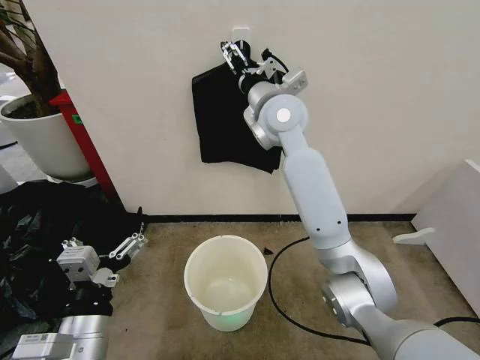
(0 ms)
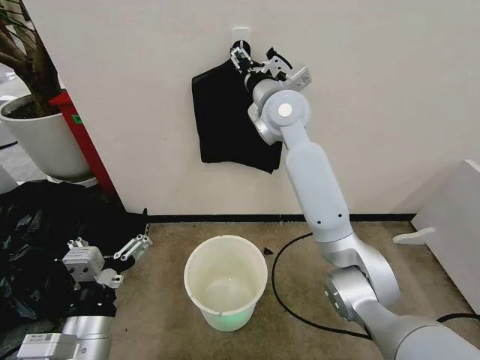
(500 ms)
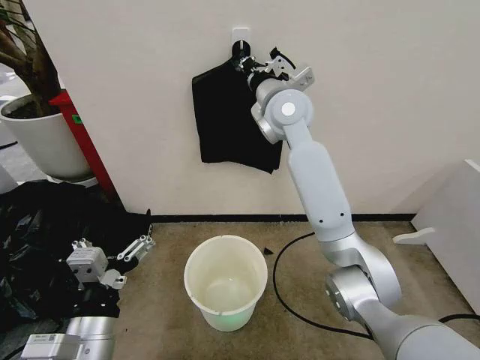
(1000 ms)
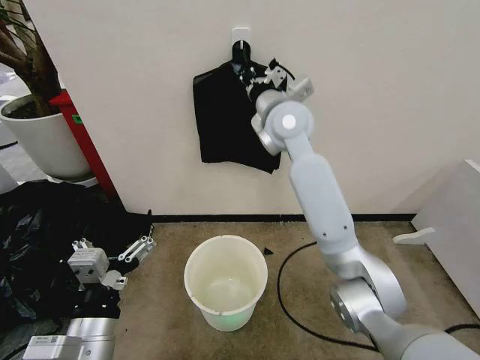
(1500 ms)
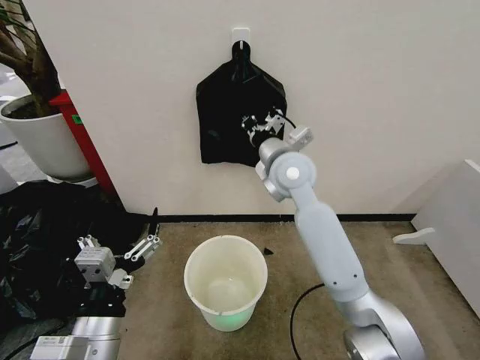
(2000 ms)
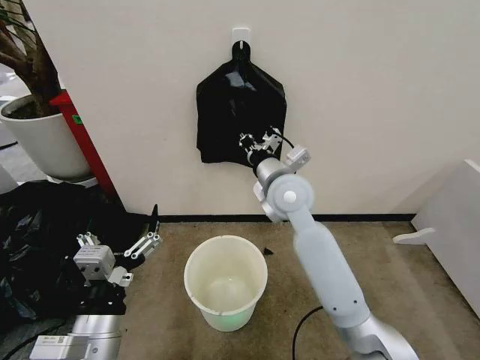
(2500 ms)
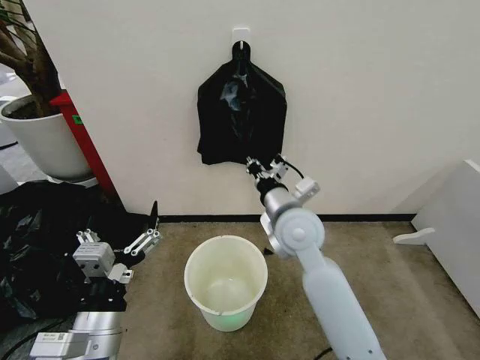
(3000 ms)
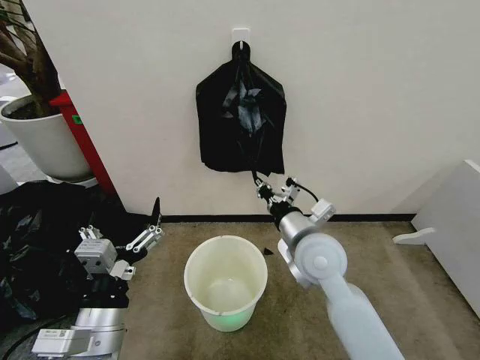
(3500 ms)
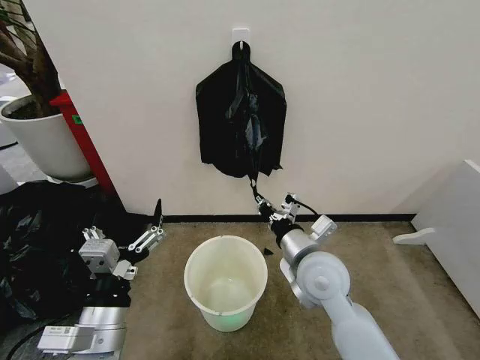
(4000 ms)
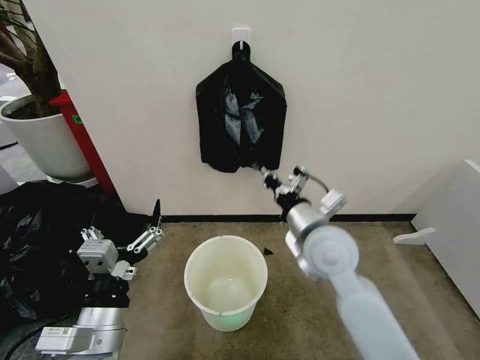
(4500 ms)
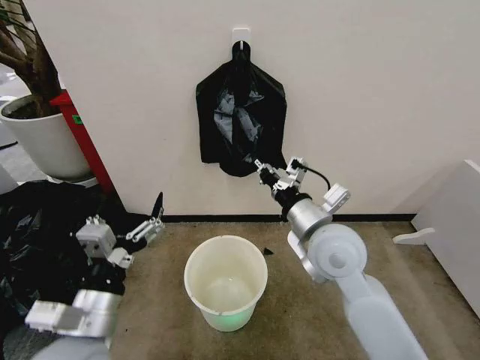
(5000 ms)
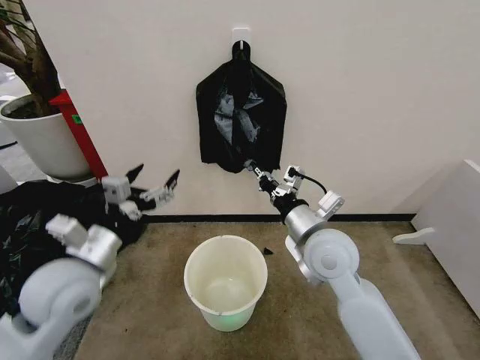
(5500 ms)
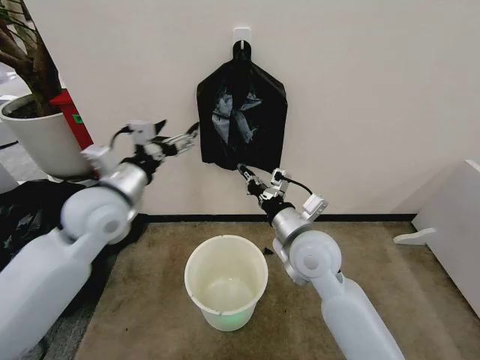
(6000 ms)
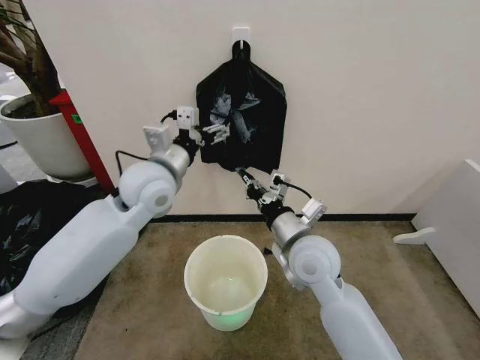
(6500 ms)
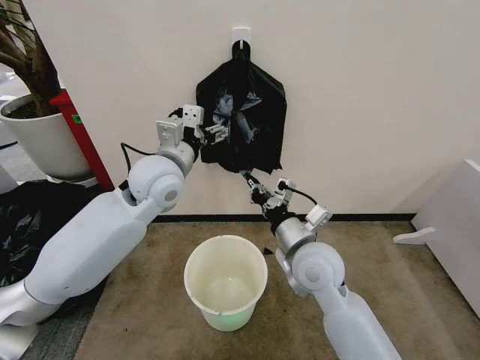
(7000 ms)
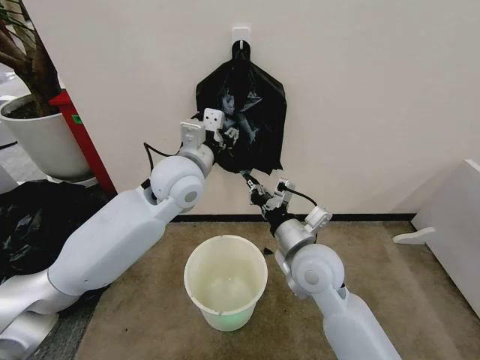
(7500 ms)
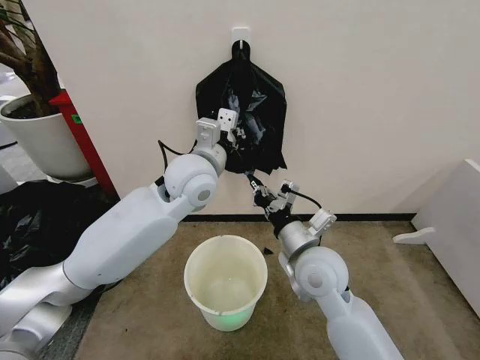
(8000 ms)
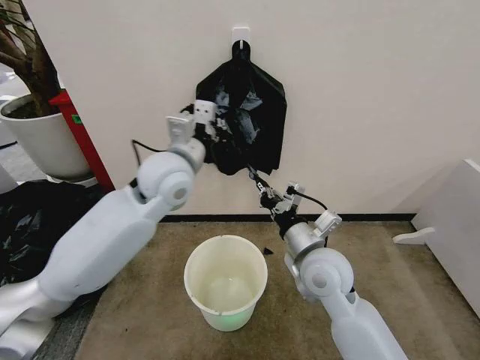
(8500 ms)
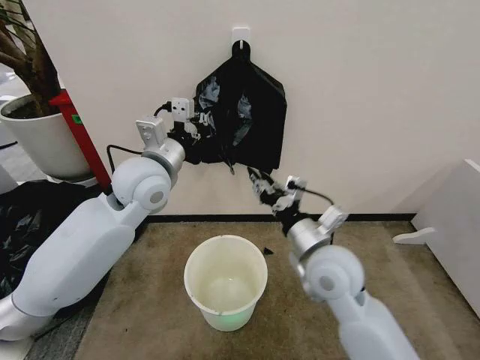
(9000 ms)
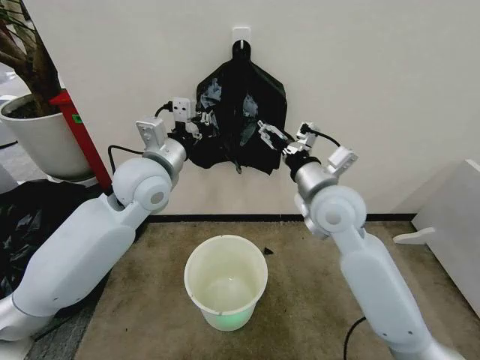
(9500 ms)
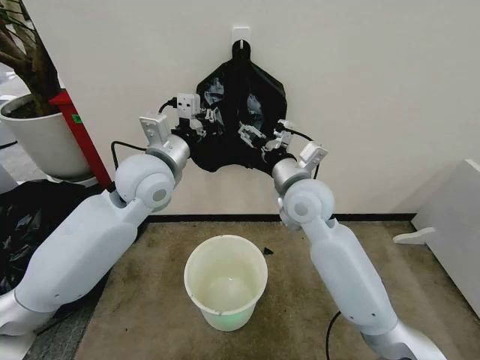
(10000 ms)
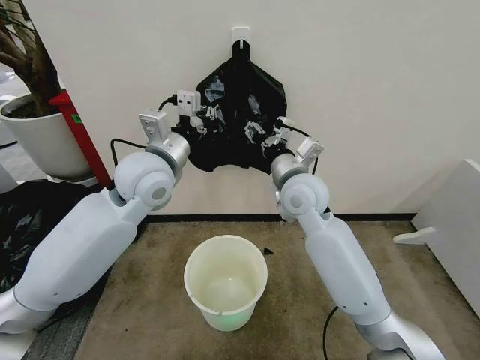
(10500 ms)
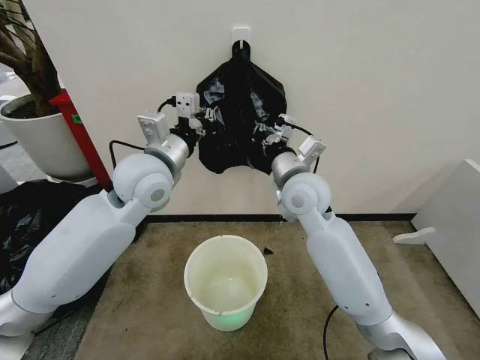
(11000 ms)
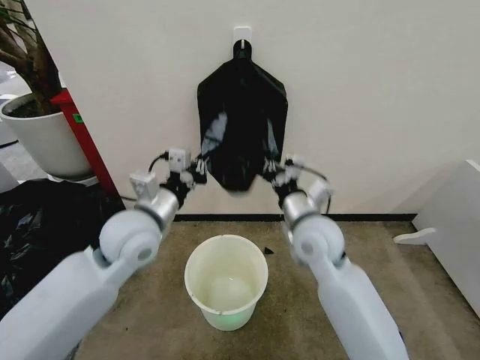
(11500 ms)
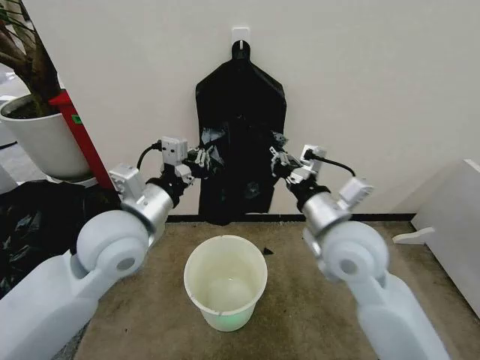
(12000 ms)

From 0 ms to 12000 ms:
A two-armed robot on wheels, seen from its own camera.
Task of the whole recording: Place the garbage bag over the trash bin.
From 0 ms to 2000 ms: The right gripper is displaced downward by approximately 10 cm, and closes its fingers.
From 2000 ms to 4000 ms: The right gripper goes about 20 cm backward and downward.
From 4000 ms to 6000 ms: The left gripper moves forward and upward, about 25 cm.
From 6000 ms to 8000 ms: The left gripper is displaced to the right and forward by some 15 cm, and closes.
From 8000 ms to 10000 ms: The right gripper is displaced forward and upward by roughly 15 cm, and opens up, while the left gripper heads to the left, covering about 10 cm.
From 10000 ms to 12000 ms: Both grippers travel together backward, some 10 cm. The right gripper closes up.

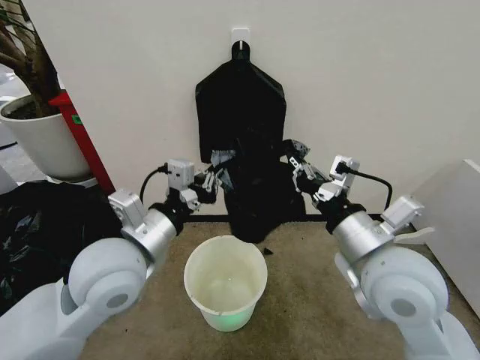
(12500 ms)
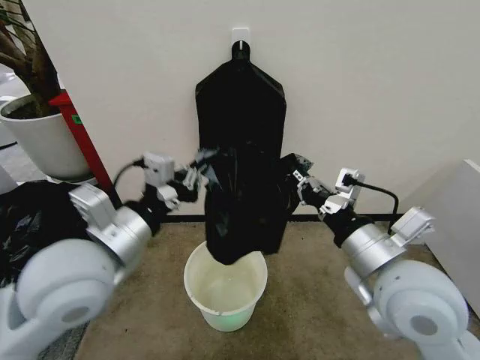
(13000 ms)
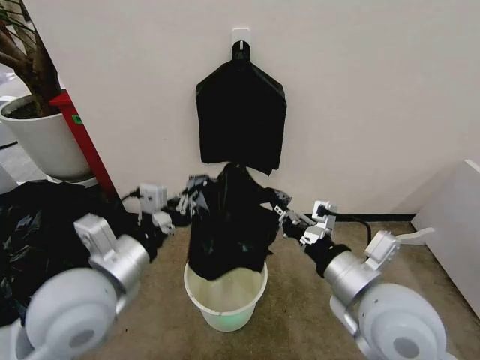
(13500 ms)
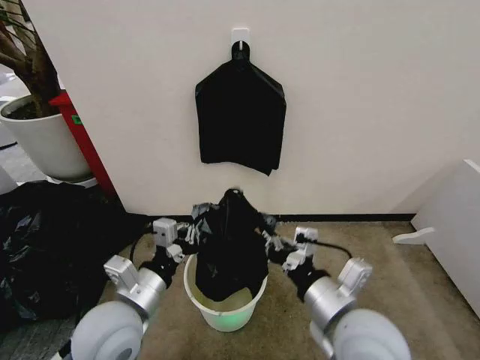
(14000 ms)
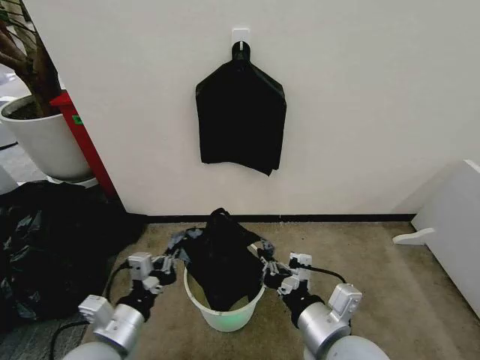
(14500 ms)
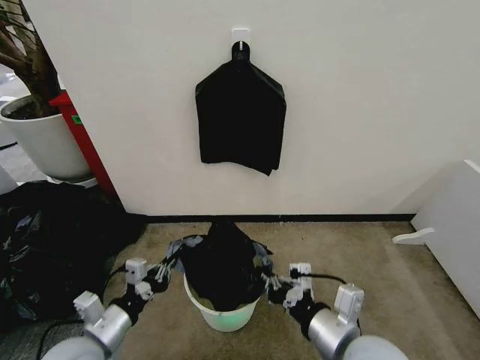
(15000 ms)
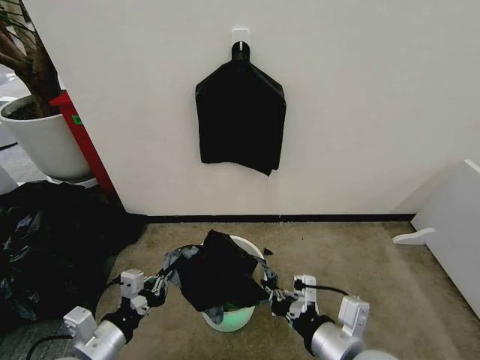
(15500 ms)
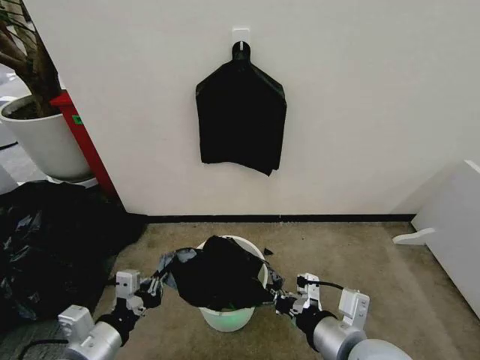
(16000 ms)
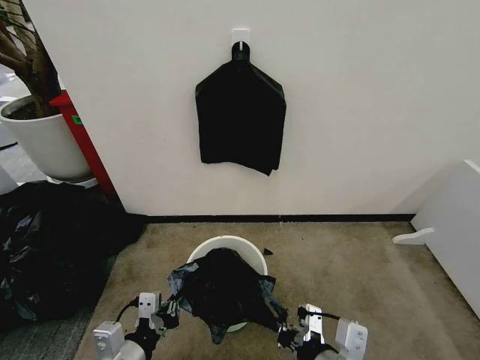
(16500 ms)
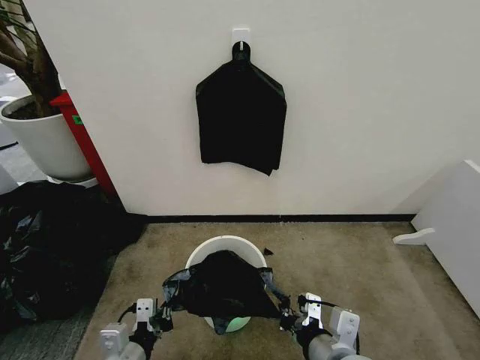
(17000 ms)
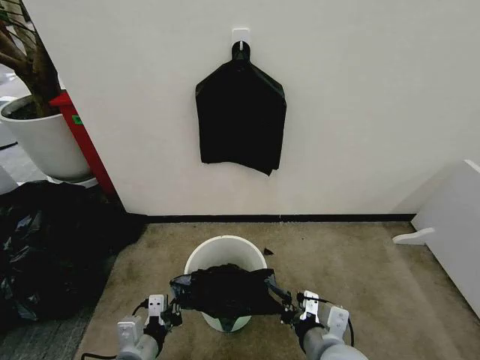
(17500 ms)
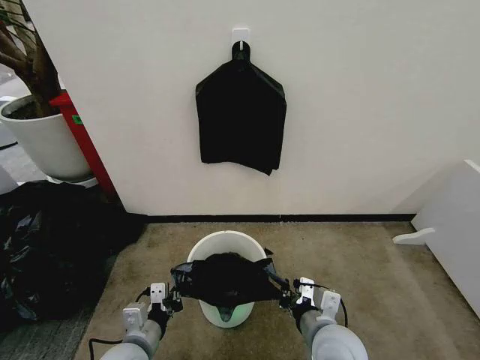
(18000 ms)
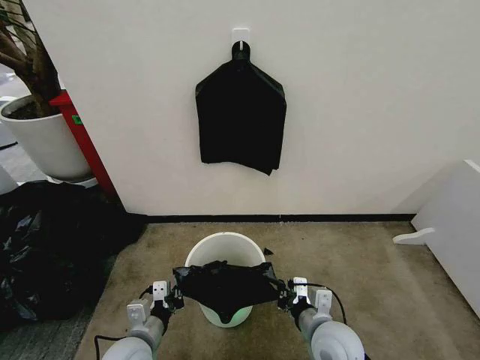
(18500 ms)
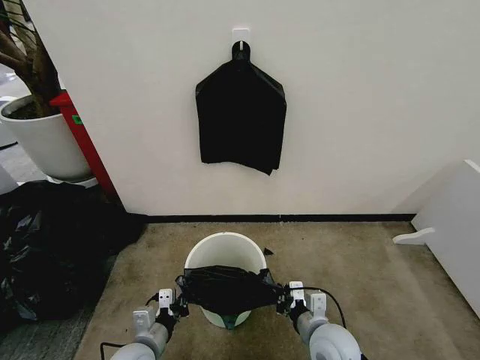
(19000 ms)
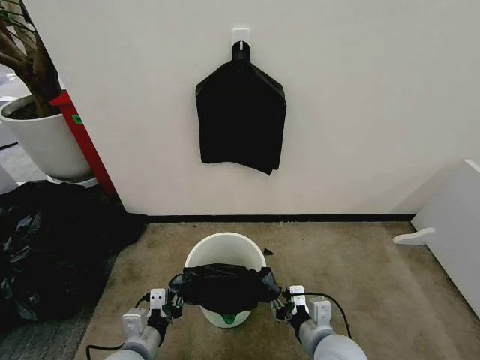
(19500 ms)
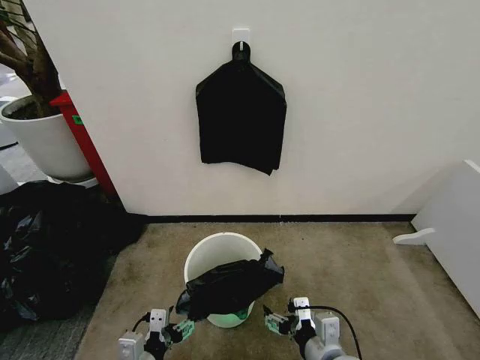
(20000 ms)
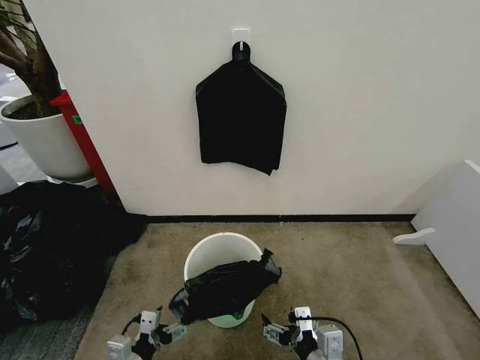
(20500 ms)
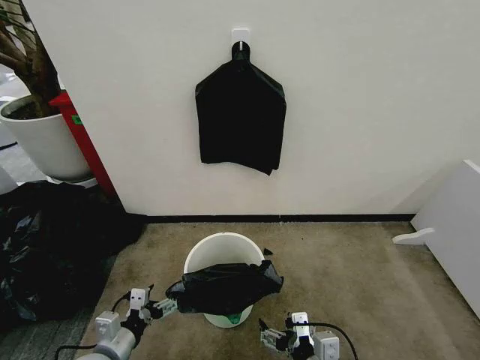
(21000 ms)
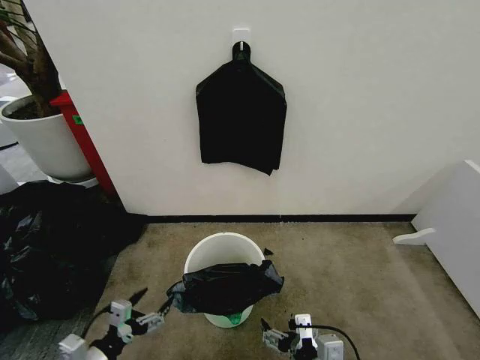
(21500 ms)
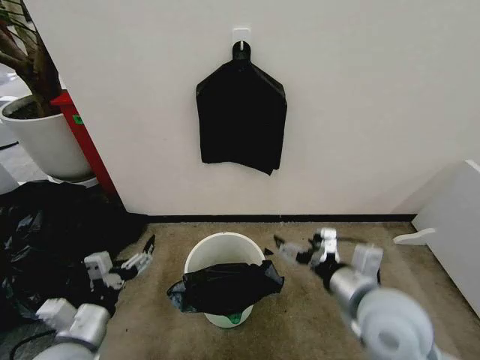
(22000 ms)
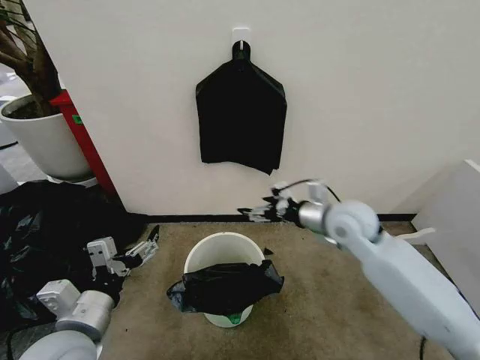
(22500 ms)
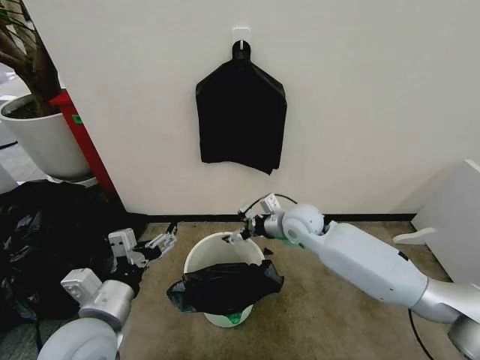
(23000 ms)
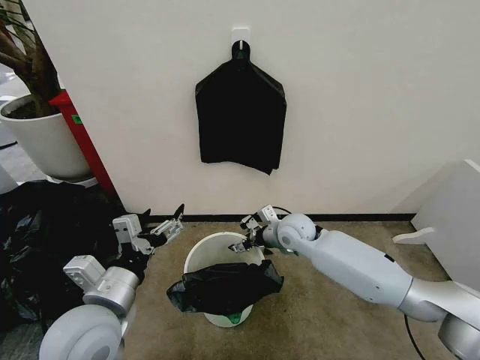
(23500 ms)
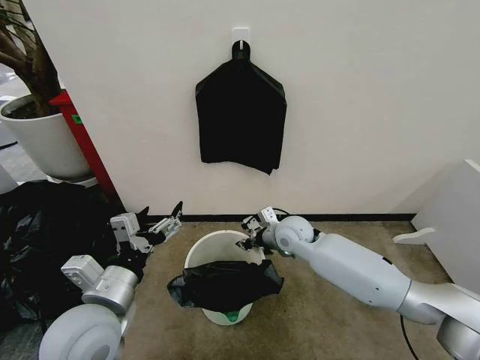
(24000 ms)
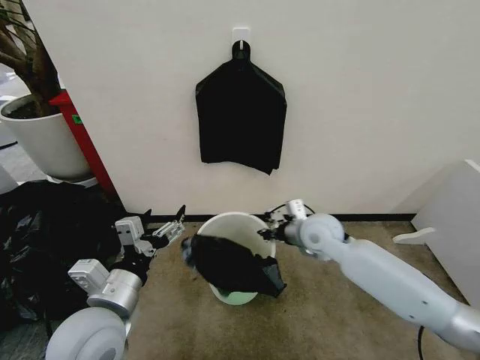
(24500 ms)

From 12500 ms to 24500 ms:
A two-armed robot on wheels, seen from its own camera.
Task of the whole recording: Place the garbage bag over the trash bin.
From 12500 ms to 14500 ms: The left gripper is displaced downward, backward and to the left by about 20 cm. Meanwhile the right gripper goes about 15 cm downward and backward.
From 16500 ms to 18500 ms: Both grippers move downward and forward, approximately 15 cm.
From 18500 ms to 20500 ms: The two grippers go about 10 cm backward. The left gripper opens up. Meanwhile the right gripper opens its fingers.
From 20500 ms to 22500 ms: The left gripper travels upward by some 20 cm; the right gripper is displaced forward and upward by some 30 cm.
From 22500 ms to 24500 ms: The left gripper ends up about 5 cm from where it was, while the right gripper moves downward, roughly 5 cm, and closes up.

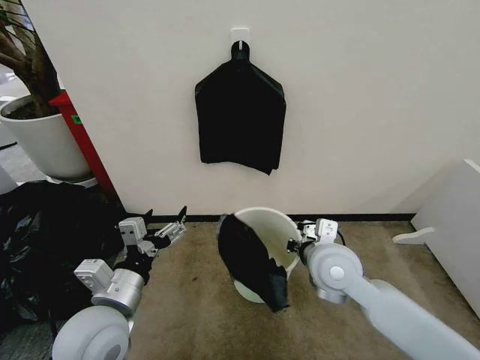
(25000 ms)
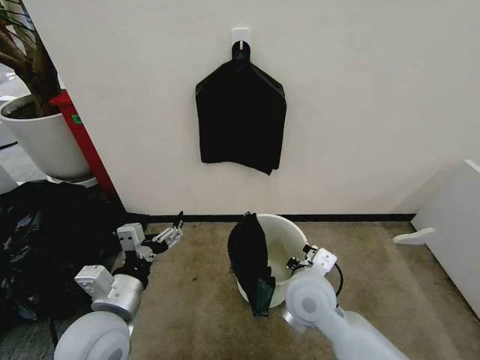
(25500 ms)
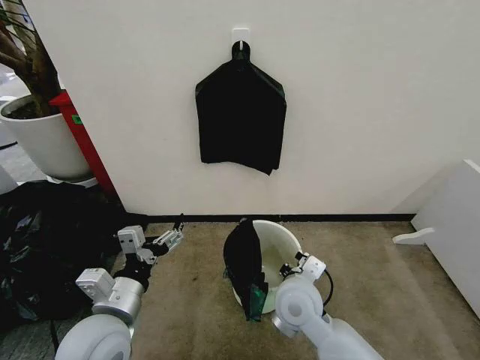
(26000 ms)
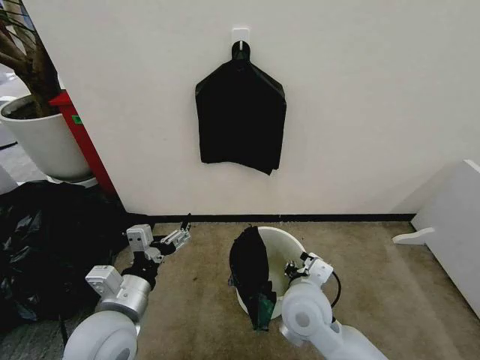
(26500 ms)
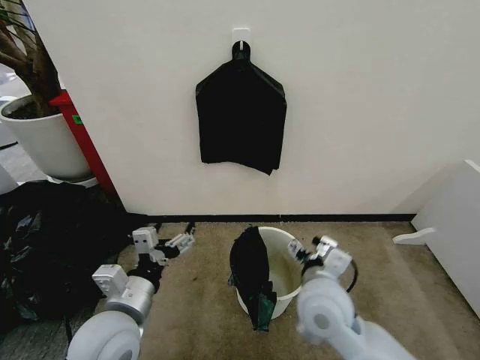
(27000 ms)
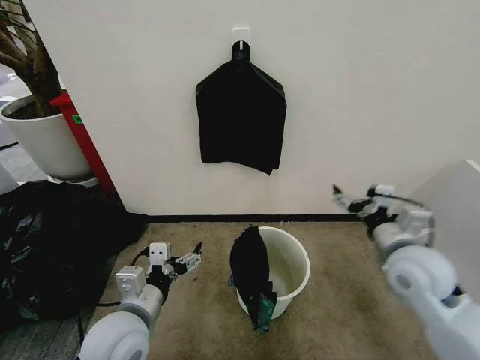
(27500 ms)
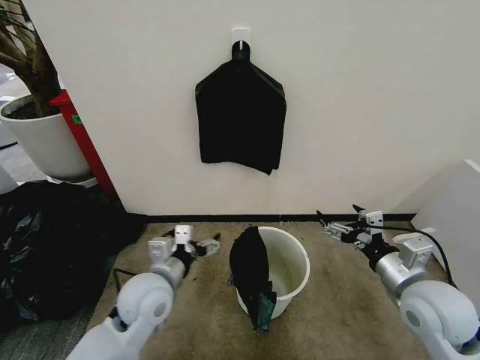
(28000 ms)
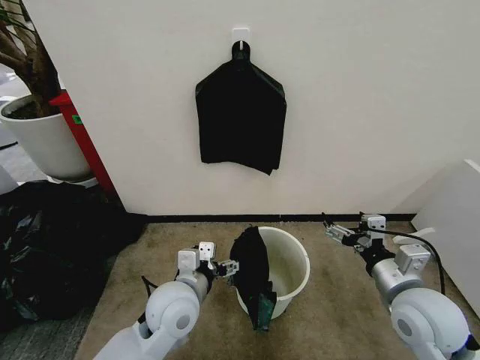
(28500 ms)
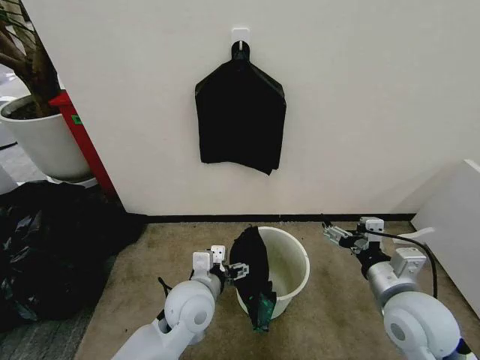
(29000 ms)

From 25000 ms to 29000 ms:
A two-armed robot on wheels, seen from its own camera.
Task of the whole recording: Place the garbage bag over the trash bin.
From 25000 ms to 27000 ms: The right gripper travels backward by approximately 5 cm, and opens.
From 27000 ms to 29000 ms: The right gripper moves to the right, approximately 15 cm, while the left gripper moves to the right, forward and downward, about 15 cm.
